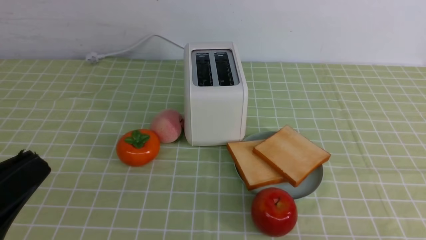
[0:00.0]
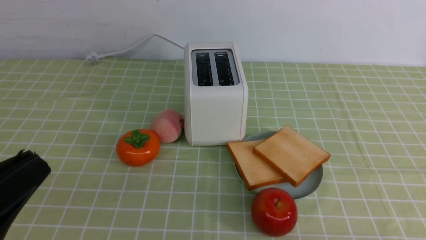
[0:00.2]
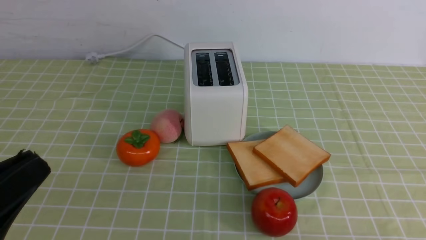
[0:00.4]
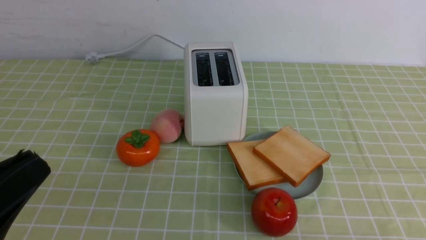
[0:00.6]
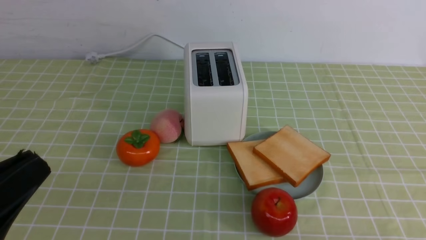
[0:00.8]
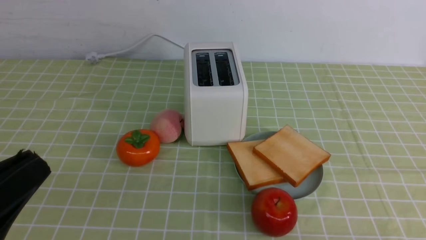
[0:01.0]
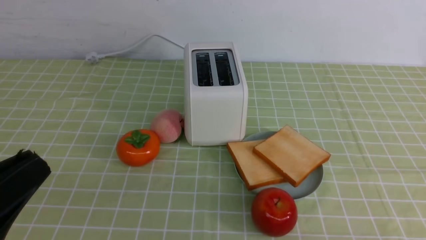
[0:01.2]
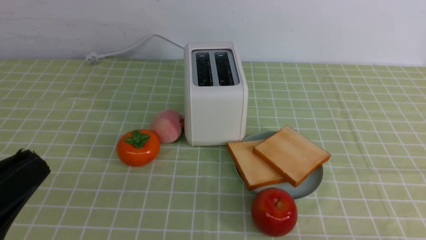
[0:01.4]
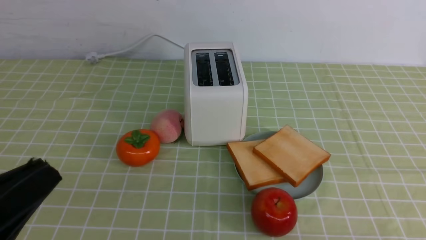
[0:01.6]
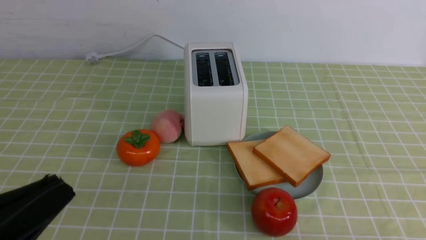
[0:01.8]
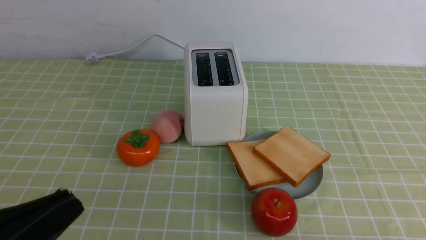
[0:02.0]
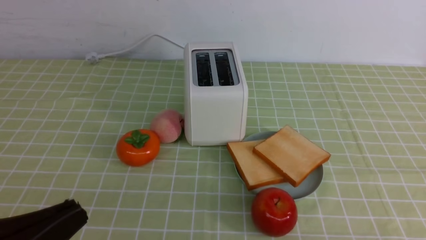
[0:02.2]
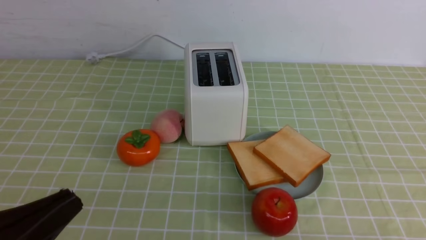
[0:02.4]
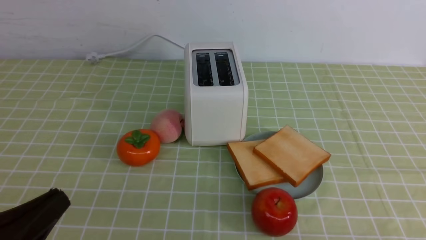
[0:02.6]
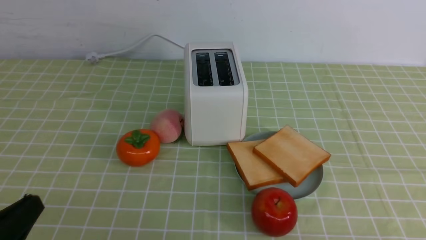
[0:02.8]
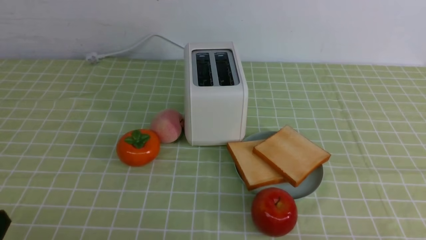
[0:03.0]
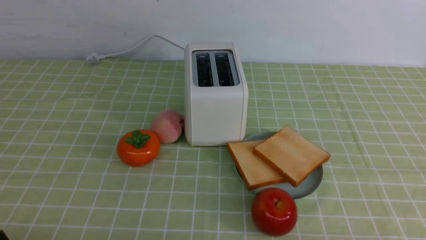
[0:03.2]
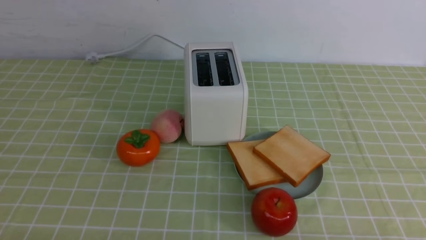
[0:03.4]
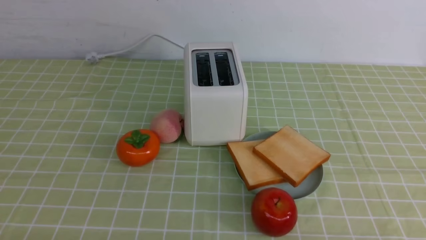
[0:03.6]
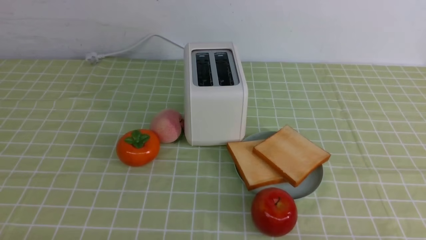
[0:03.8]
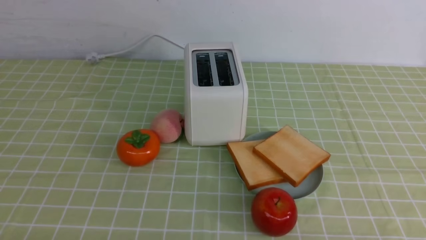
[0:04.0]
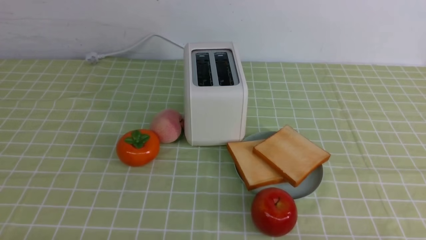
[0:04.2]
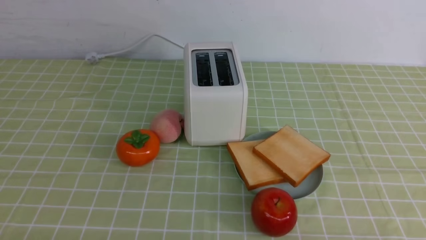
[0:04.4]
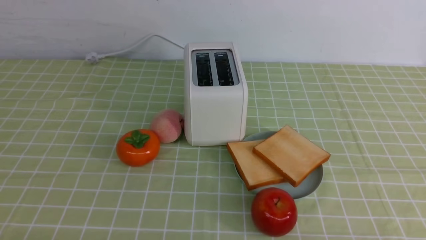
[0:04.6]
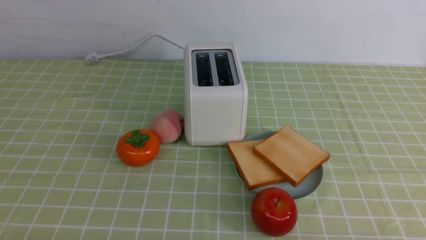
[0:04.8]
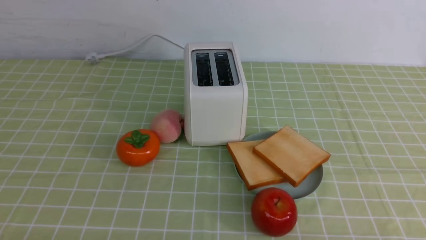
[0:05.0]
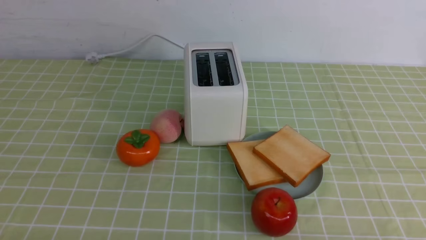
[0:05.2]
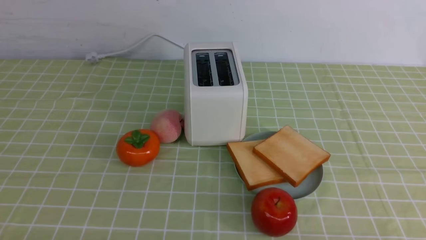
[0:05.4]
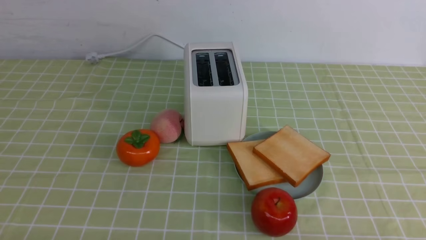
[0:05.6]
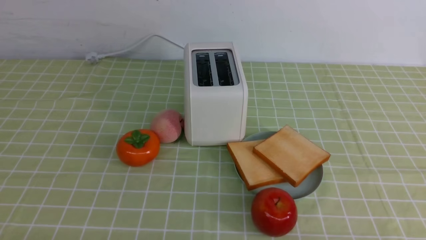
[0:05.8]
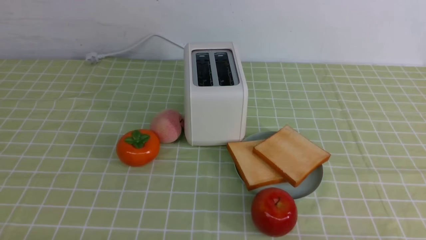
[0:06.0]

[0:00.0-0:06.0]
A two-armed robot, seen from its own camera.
Task of the whole recording: take toasted bread from bread machine on green coffee tablecloth place on plate.
0:00.0 to 0:01.6: The grippers move only a little.
0:01.6 to 0:03.0: The left gripper travels downward by about 10 cm.
0:04.4 to 0:06.0: Both grippers stay put.

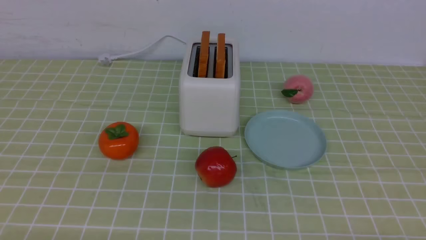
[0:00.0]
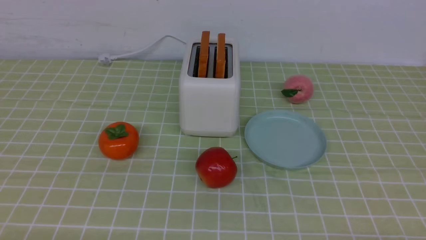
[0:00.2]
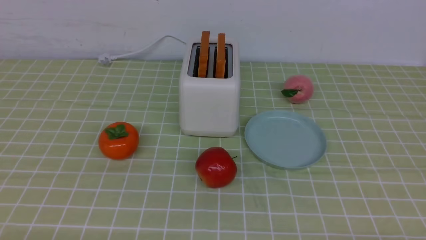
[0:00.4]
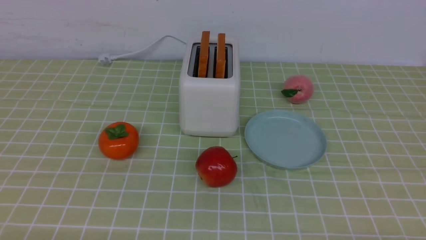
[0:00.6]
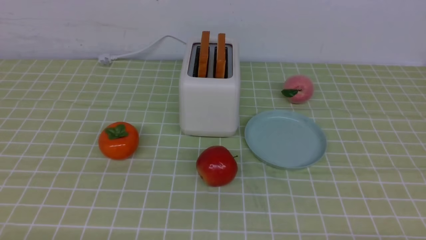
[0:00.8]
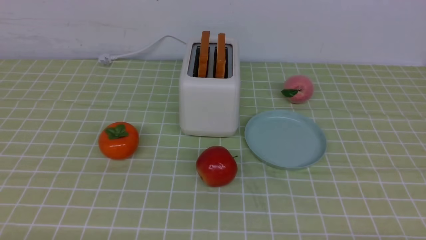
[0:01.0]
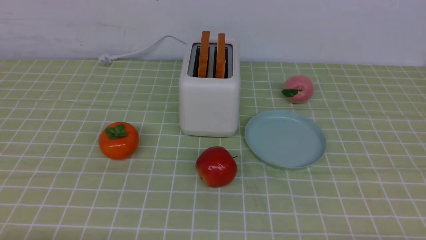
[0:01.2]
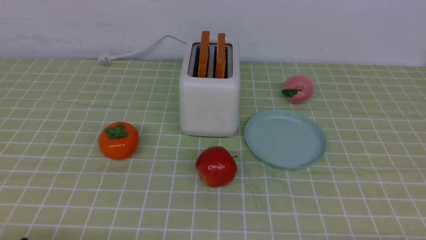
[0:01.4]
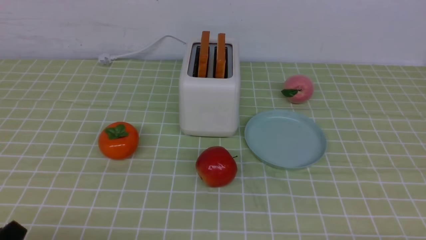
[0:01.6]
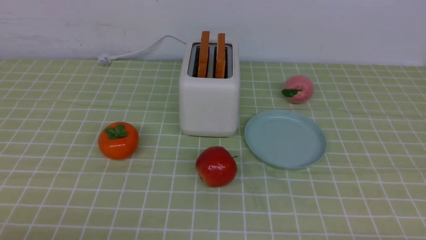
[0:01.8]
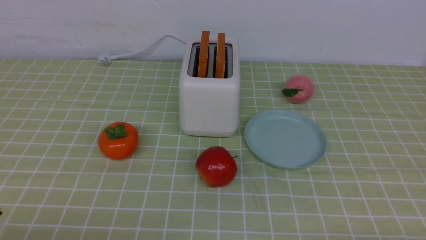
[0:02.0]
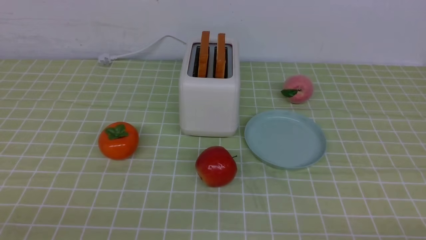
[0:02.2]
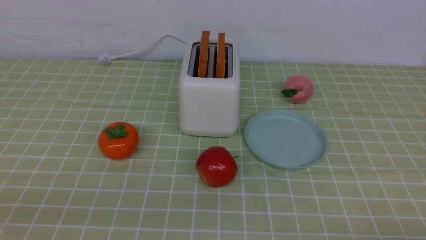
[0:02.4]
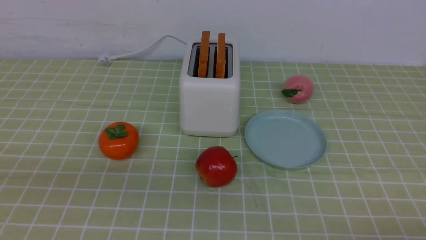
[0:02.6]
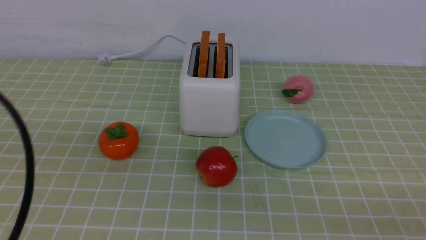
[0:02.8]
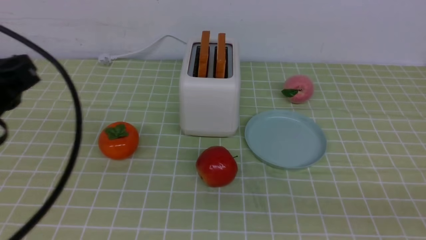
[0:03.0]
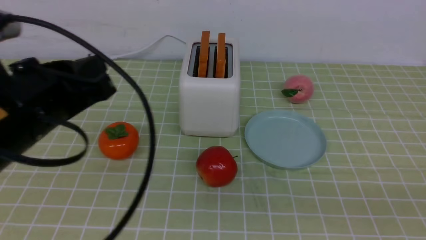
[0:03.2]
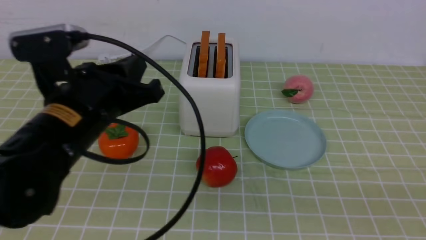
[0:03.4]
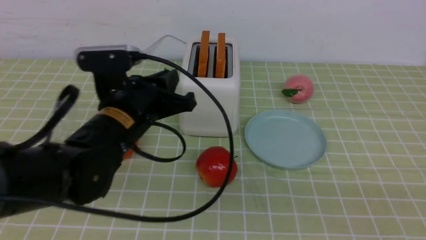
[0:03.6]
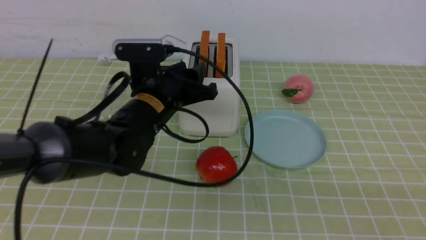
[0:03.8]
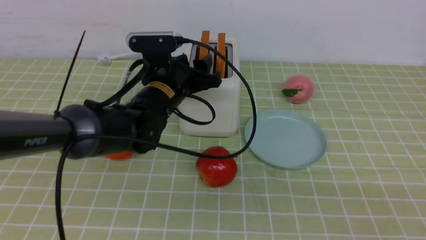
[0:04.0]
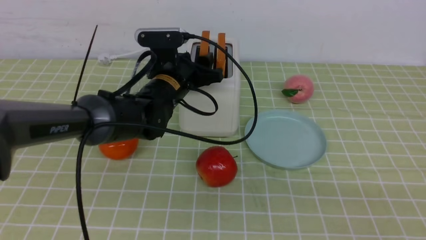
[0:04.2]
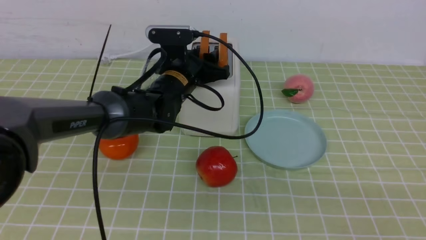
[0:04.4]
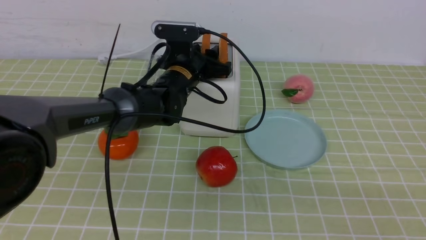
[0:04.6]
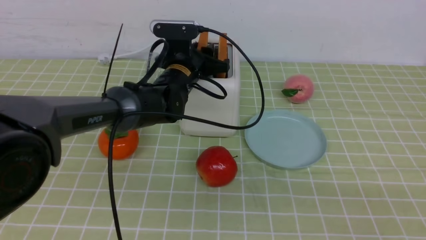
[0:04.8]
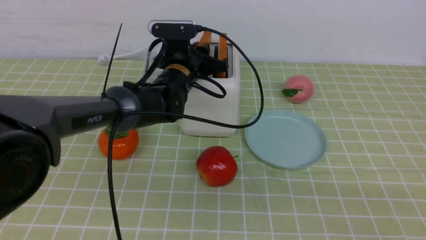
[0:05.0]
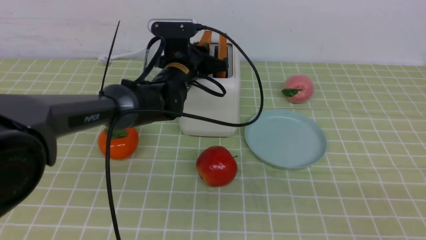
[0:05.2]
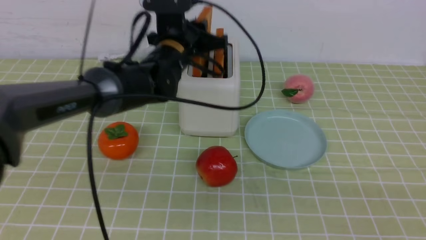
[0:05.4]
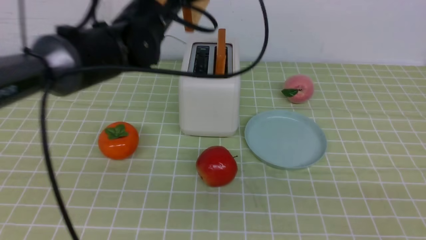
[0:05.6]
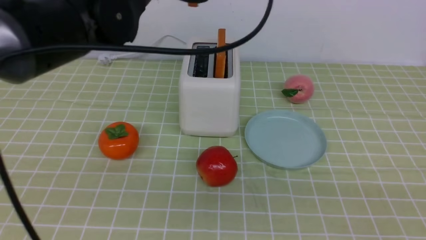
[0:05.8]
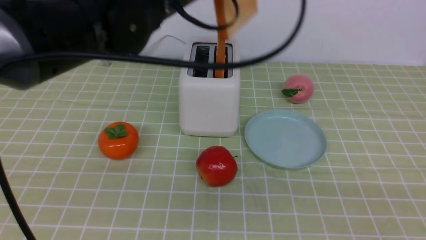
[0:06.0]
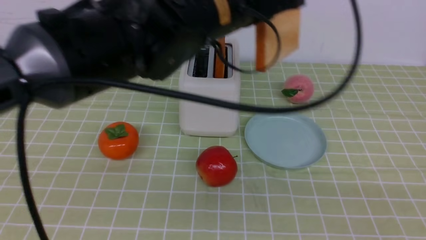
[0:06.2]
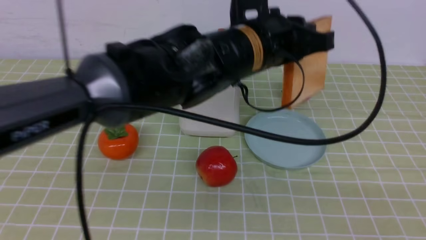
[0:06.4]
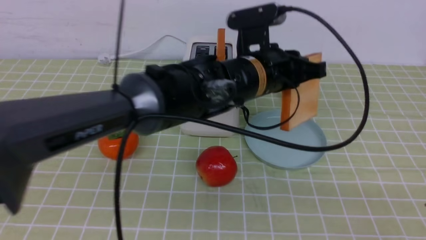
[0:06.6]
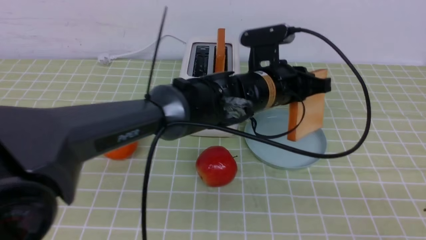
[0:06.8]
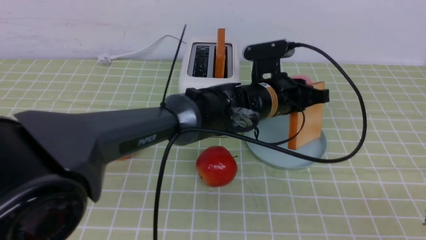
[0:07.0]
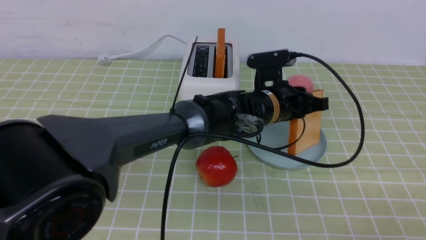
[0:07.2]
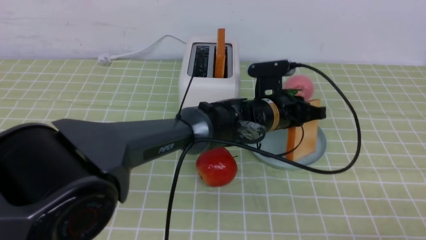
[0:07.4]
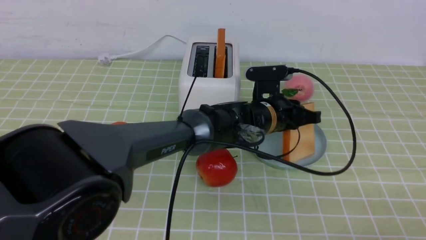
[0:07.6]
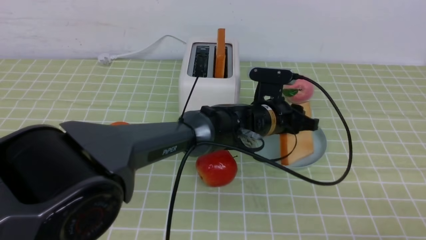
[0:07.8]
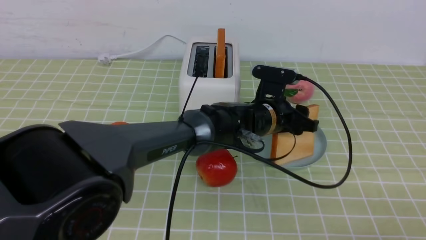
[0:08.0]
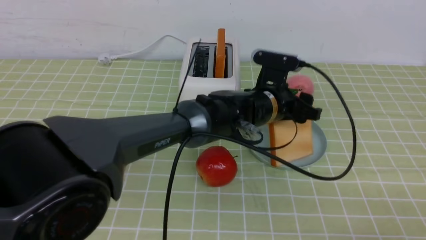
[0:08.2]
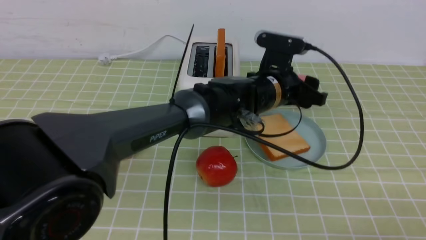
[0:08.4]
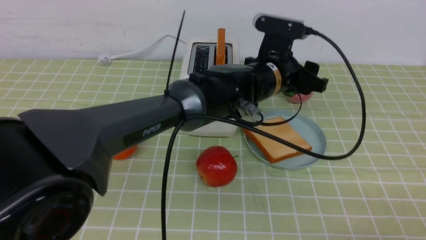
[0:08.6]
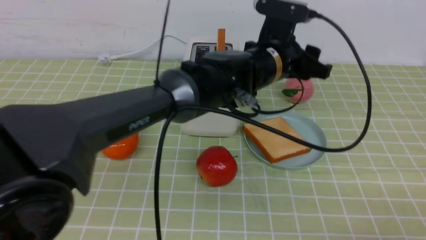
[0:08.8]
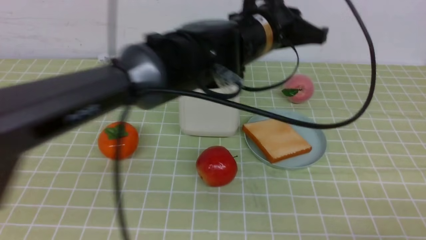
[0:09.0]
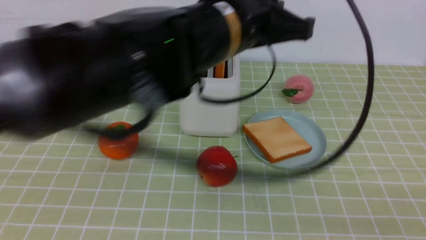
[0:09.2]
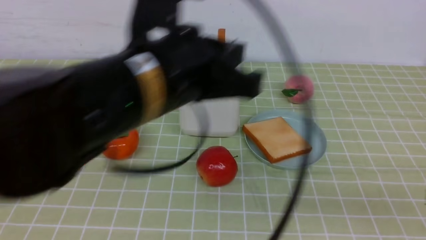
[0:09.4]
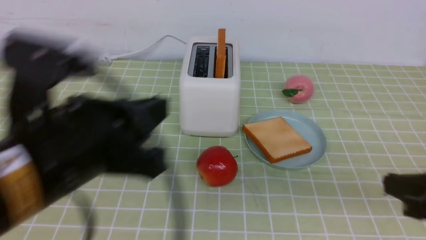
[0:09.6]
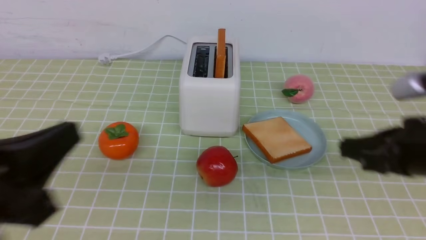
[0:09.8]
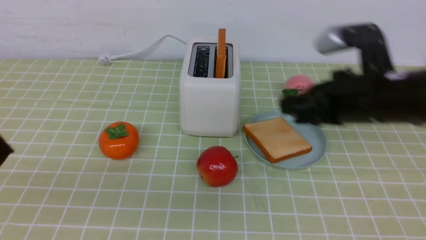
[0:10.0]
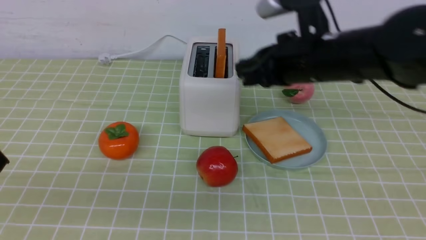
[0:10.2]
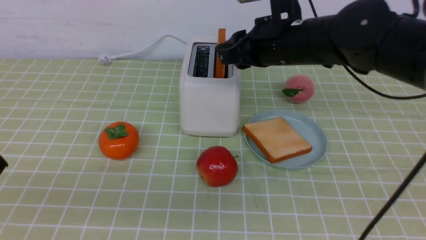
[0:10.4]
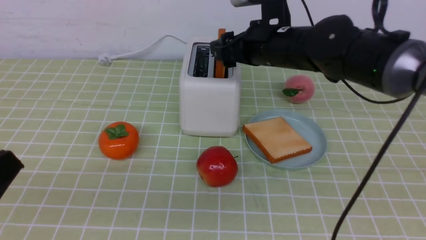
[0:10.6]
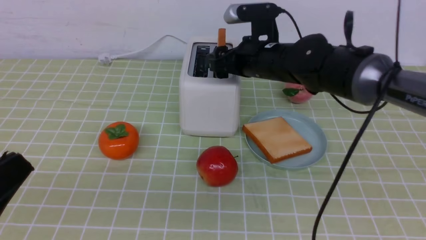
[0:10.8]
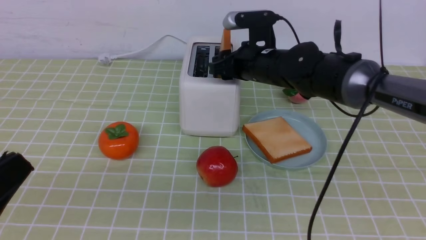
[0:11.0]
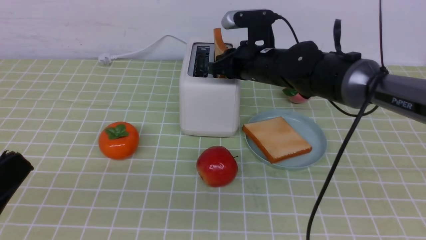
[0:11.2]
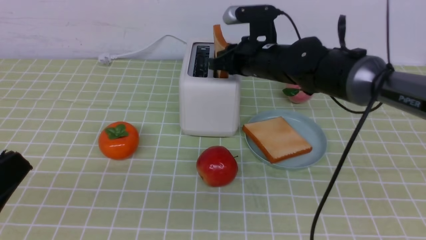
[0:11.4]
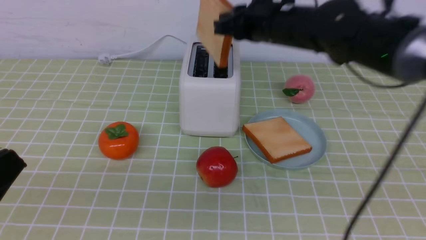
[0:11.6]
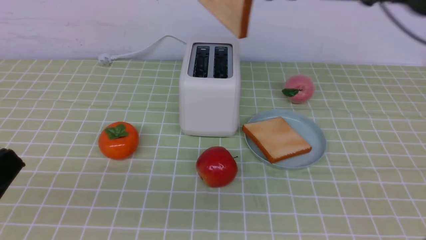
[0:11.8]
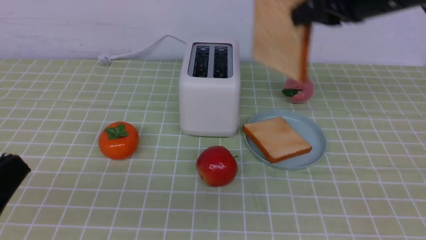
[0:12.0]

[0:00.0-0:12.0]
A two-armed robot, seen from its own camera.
Task of the whole recording: take toasted bread from bread machine on green coffee tablecloth place on plate.
Step, 0:00.0 to 0:05.4: use the left arm to take out a slice of bread.
Step, 0:05.6 to 0:08.4: use the left arm to put a slice of bread into the empty plate.
Step, 0:08.6 to 0:11.6: use the right arm to take out a slice of bread.
0:01.6 to 0:03.0: The left gripper is displaced upward and forward by approximately 20 cm, and closes.
0:03.0 to 0:04.4: The left gripper travels forward, to the right and downward by about 30 cm, and opens up.
0:04.4 to 0:06.0: The left gripper goes roughly 20 cm upward and backward, and closes up.
0:06.0 to 0:07.6: The right gripper shifts some 5 cm downward. The left gripper goes some 25 cm downward and to the right.
0:07.6 to 0:09.0: The left gripper moves upward, about 15 cm, and opens and closes again.
0:09.0 to 0:10.4: The right gripper travels forward and to the left by about 35 cm, and opens its fingers; the left gripper is displaced to the left and backward by some 40 cm.
0:10.4 to 0:12.0: The right gripper is displaced to the right and upward by about 10 cm, and closes its fingers.
